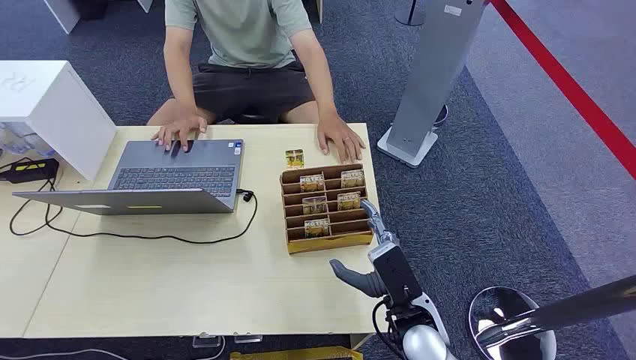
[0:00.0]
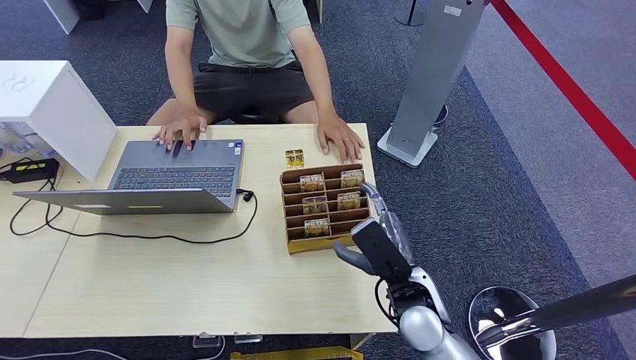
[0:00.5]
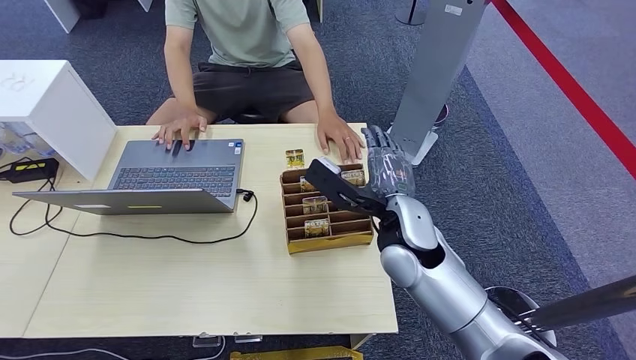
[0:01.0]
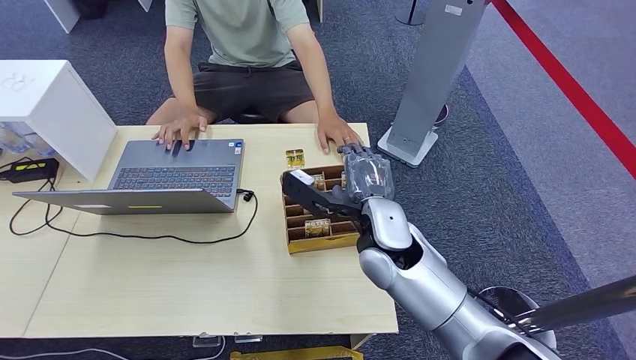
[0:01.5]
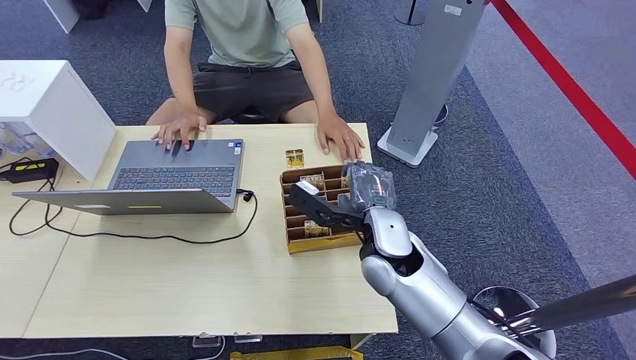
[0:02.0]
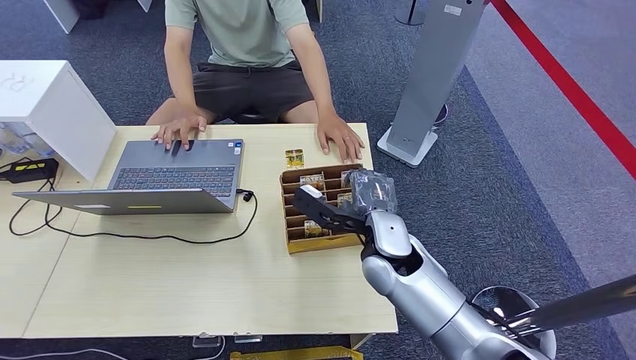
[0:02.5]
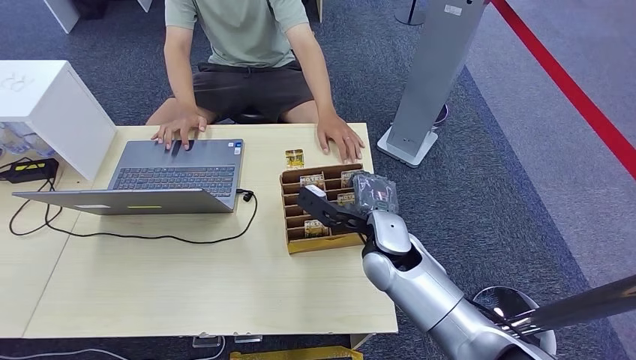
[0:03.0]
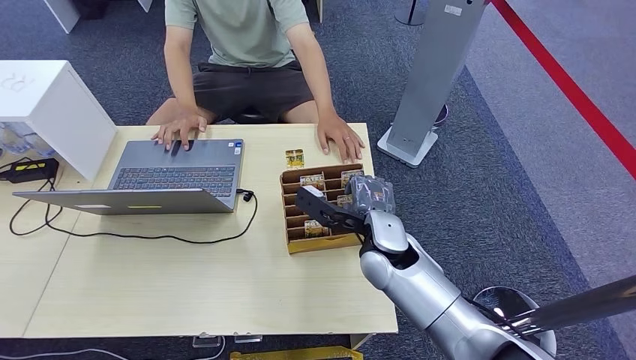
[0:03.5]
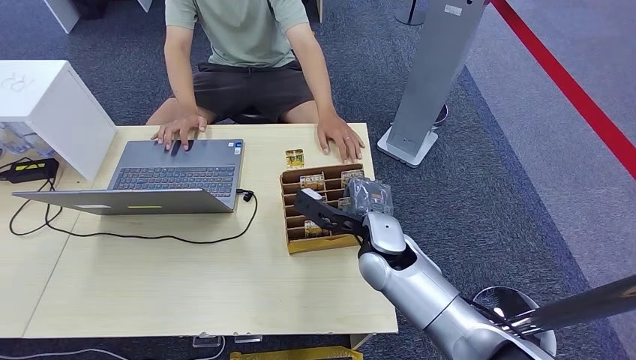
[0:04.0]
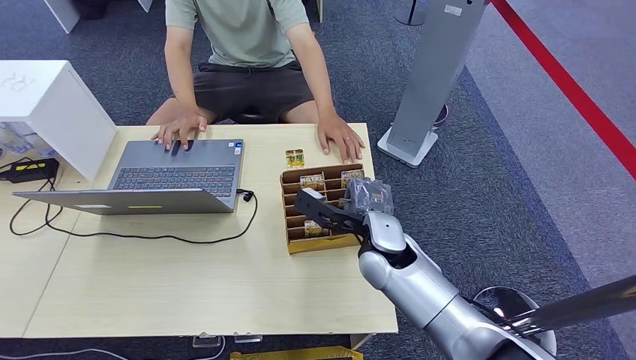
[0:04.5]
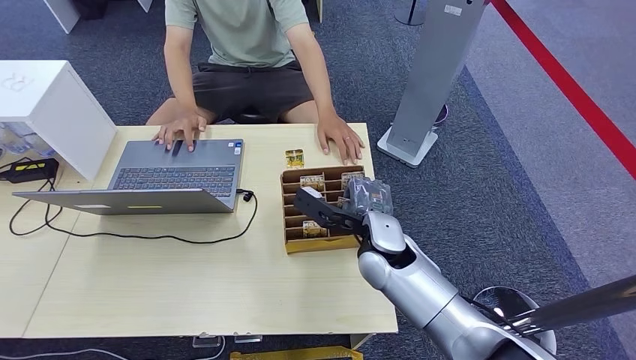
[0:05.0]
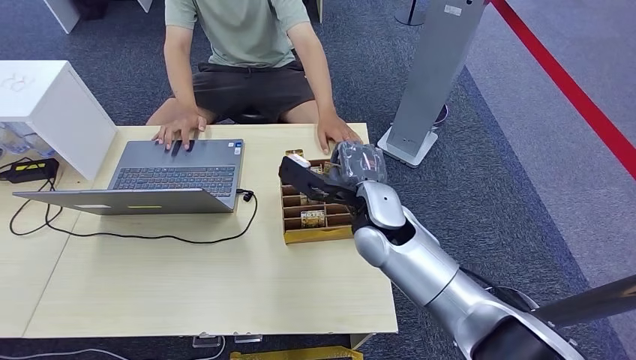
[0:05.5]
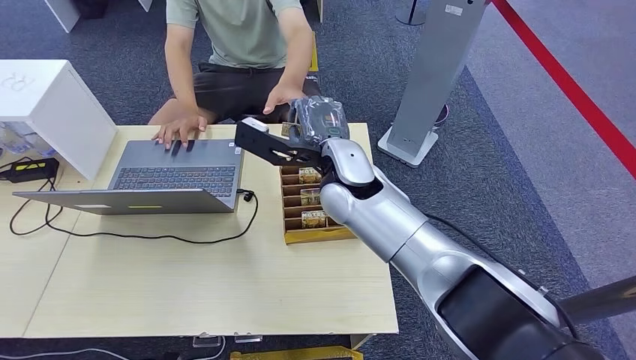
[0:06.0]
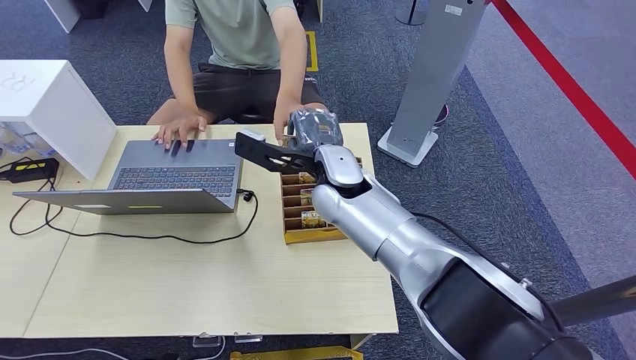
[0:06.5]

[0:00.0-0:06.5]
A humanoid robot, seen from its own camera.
Step, 0:00.0 to 0:05.5: Pick up the key card from the card box.
Step, 0:06.0 to 0:06.5: Hand the key card to the target.
0:02.0 to 0:04.5: The hands make only small movements.
0:04.5 to 0:06.5: The right hand moves upward, to the left and forward, some 15 cm.
